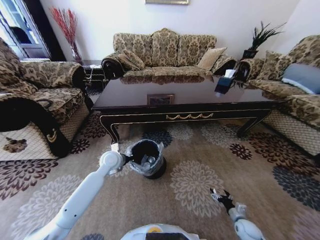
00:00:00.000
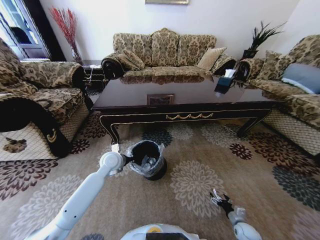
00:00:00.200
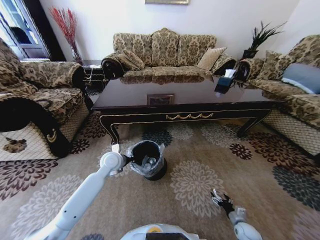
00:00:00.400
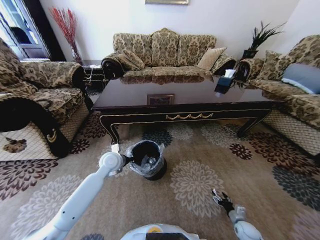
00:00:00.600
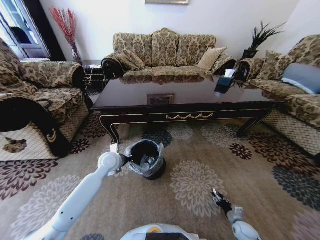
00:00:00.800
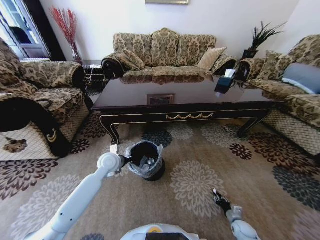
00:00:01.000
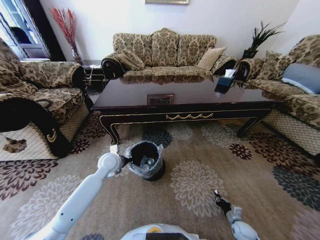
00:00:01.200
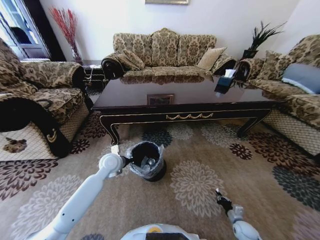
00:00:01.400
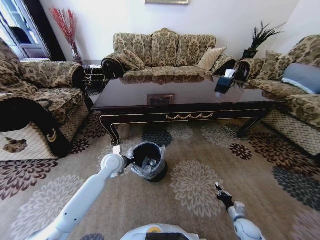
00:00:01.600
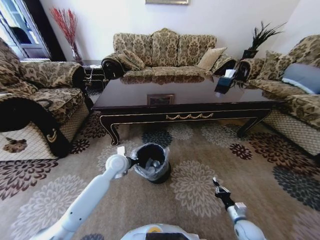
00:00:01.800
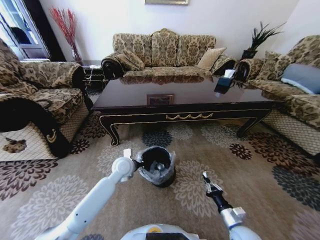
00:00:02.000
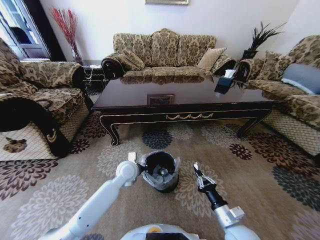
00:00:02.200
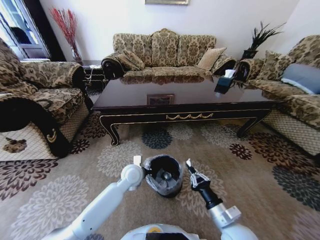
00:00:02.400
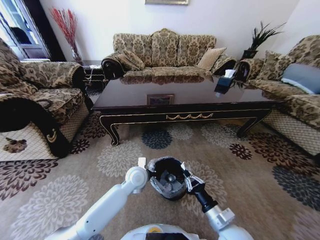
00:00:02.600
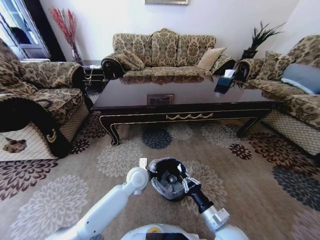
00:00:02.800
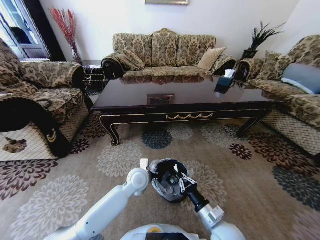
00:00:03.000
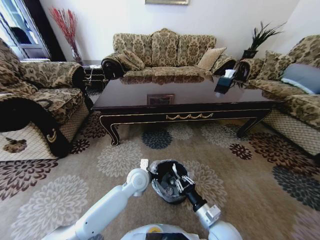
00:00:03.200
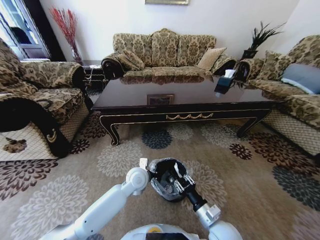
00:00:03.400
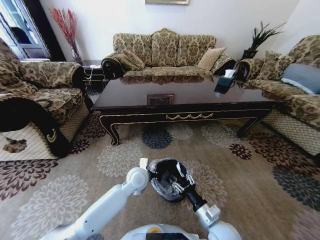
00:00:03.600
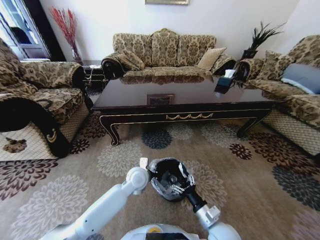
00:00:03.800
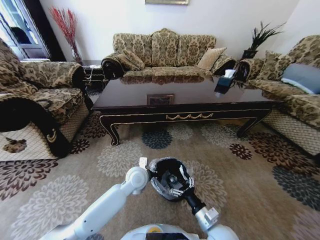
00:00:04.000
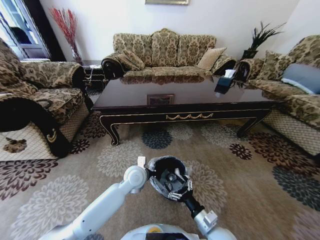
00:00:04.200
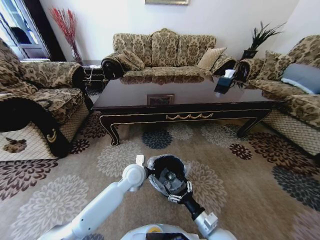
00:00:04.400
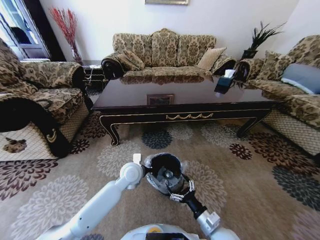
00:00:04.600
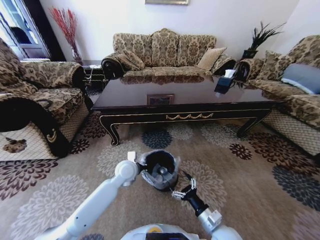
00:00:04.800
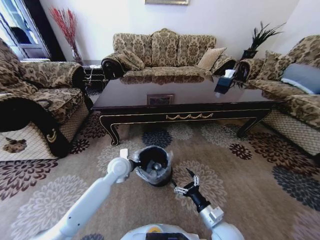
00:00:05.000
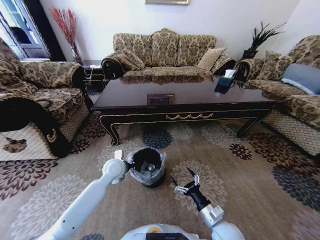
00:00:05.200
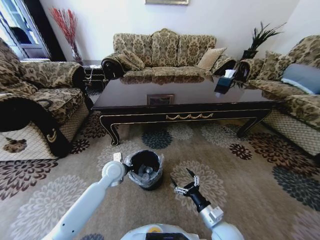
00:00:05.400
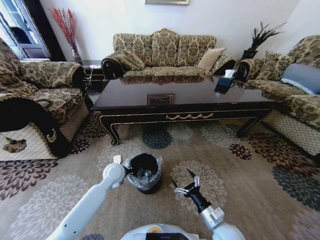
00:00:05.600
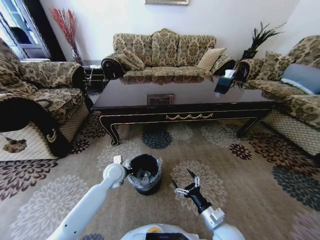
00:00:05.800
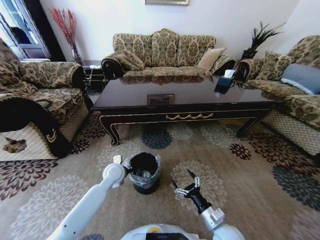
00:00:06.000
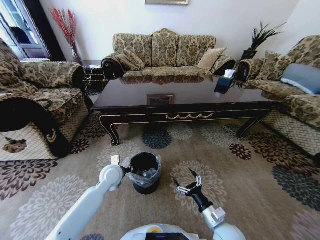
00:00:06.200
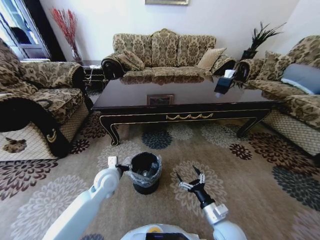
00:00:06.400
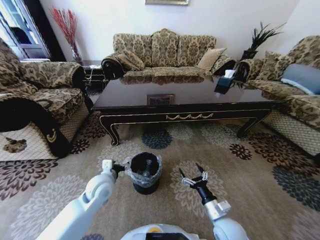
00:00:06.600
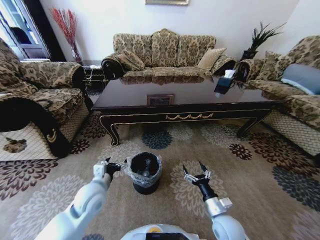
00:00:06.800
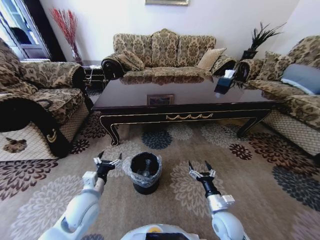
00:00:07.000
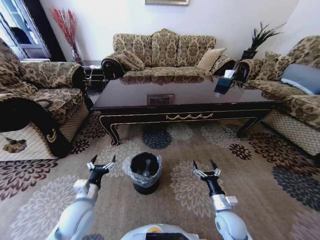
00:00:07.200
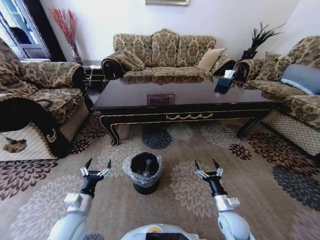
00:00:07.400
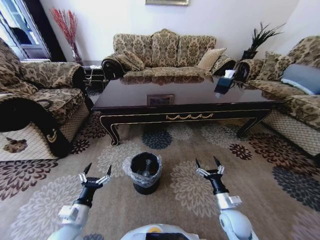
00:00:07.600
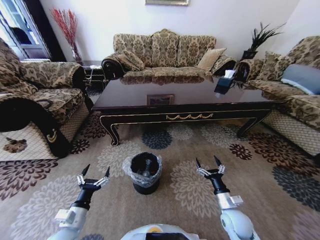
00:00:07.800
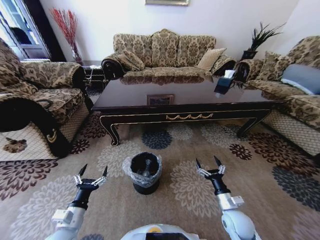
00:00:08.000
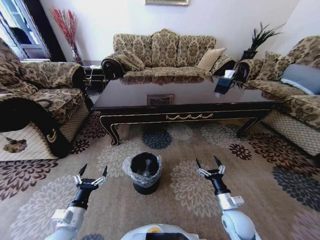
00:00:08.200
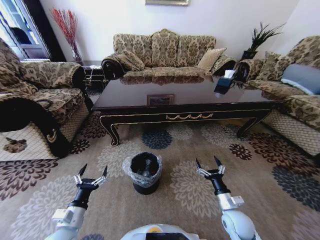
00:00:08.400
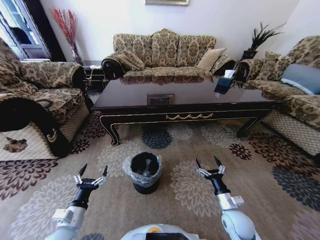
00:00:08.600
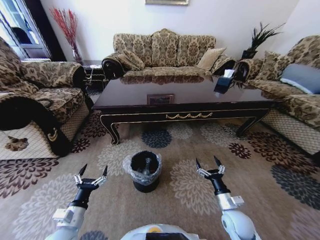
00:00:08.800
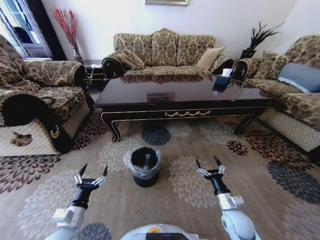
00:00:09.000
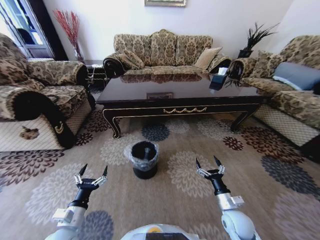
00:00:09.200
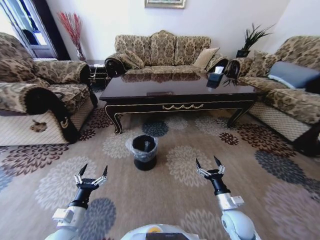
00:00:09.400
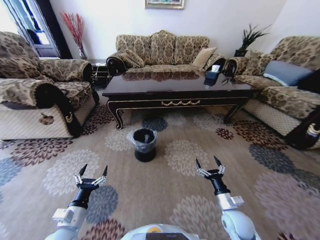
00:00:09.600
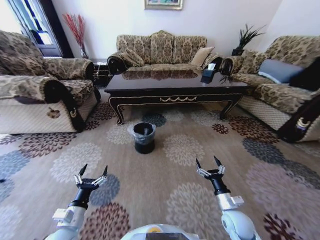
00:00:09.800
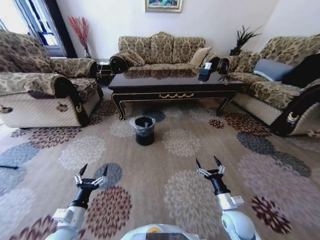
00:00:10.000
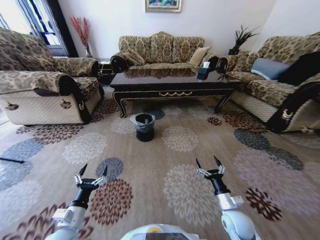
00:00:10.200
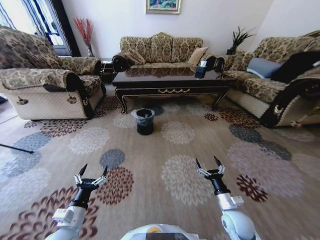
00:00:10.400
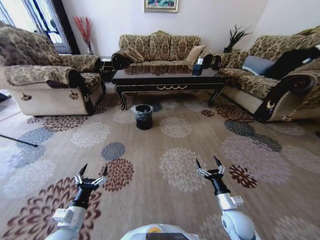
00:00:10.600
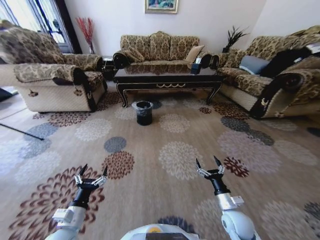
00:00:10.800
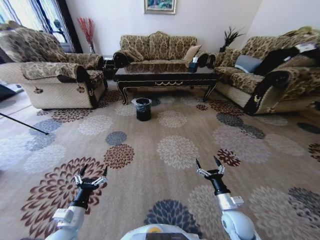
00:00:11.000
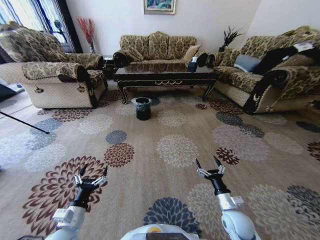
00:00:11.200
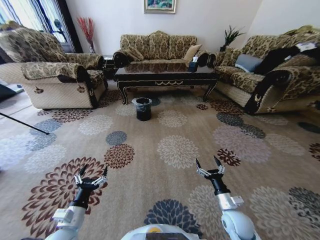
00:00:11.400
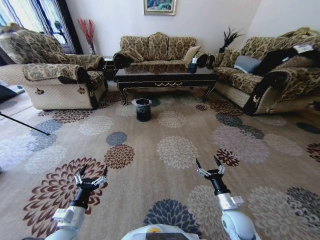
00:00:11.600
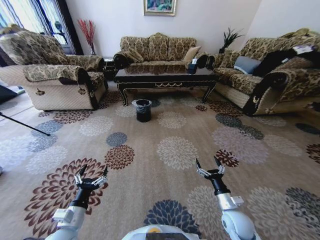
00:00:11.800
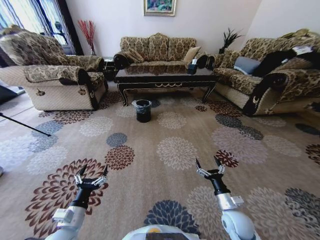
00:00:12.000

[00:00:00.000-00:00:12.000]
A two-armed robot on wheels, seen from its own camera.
Task of the whole recording: Move to the front of the table and pick up the trash from the floor, then place it into the trash bin.
00:00:00.000 to 00:00:01.600: The right gripper closes.
00:00:01.600 to 00:00:03.000: The right gripper is displaced to the left and upward by approximately 30 cm. The left gripper goes some 15 cm to the right and backward.
00:00:03.000 to 00:00:04.400: The right gripper opens.
00:00:04.400 to 00:00:06.000: The left gripper heads to the left, covering about 10 cm.
00:00:06.000 to 00:00:07.600: The left gripper goes approximately 25 cm backward and to the left, and opens. The right gripper travels to the right and forward by about 10 cm.

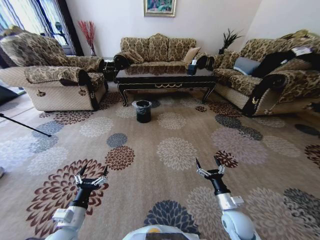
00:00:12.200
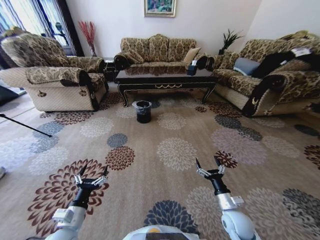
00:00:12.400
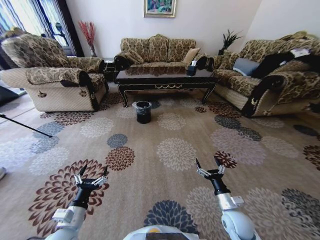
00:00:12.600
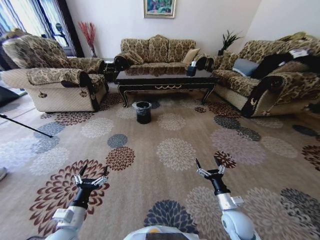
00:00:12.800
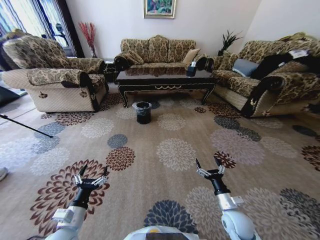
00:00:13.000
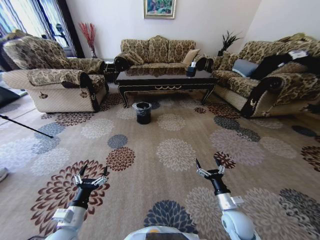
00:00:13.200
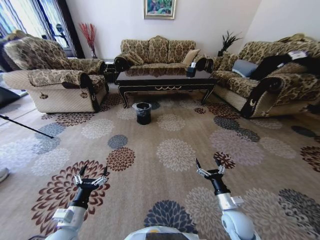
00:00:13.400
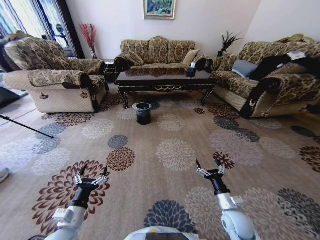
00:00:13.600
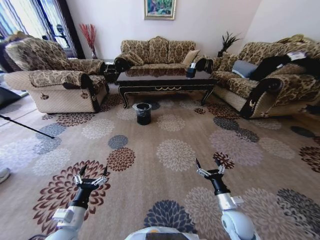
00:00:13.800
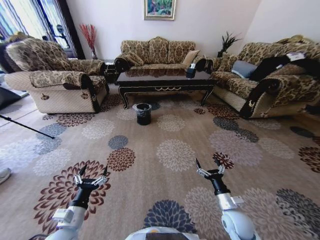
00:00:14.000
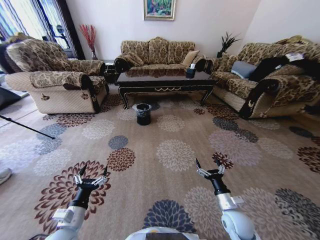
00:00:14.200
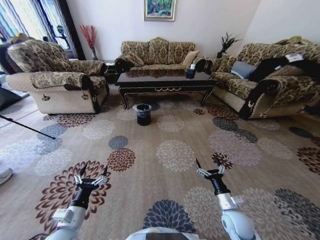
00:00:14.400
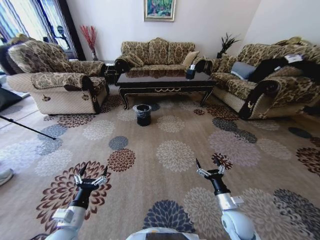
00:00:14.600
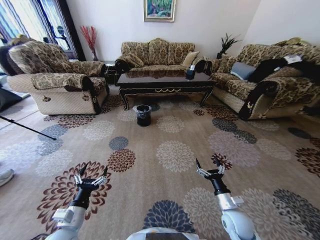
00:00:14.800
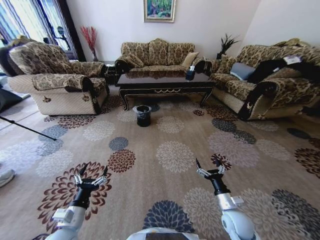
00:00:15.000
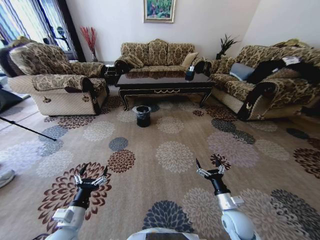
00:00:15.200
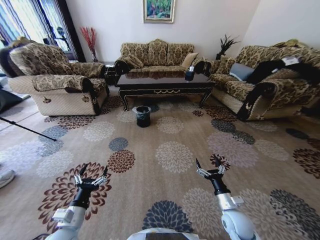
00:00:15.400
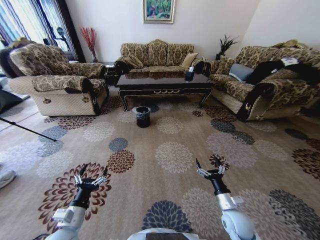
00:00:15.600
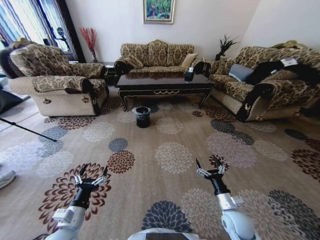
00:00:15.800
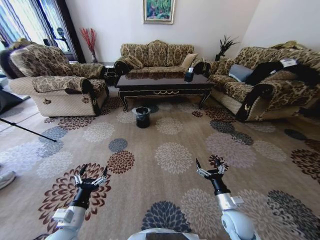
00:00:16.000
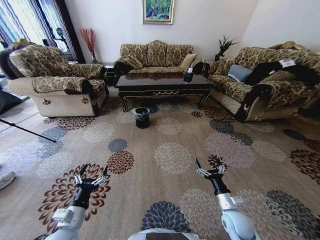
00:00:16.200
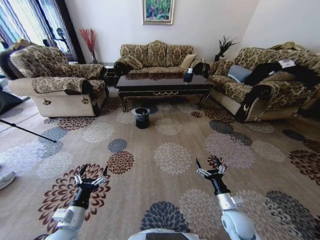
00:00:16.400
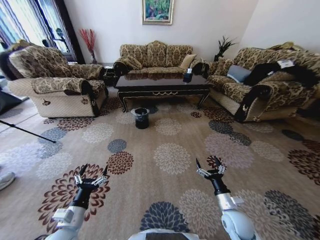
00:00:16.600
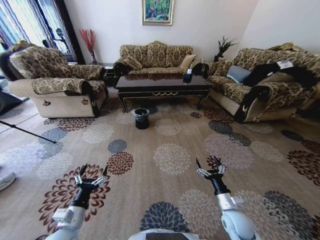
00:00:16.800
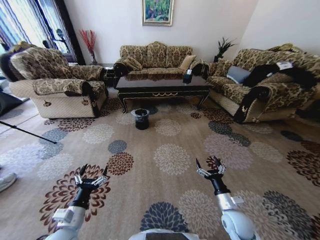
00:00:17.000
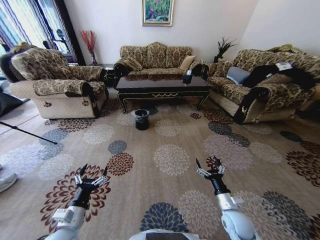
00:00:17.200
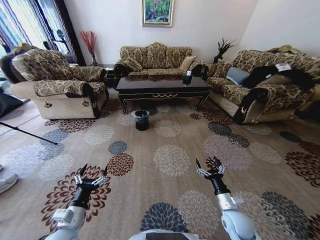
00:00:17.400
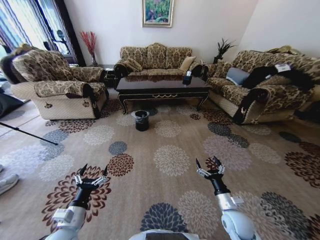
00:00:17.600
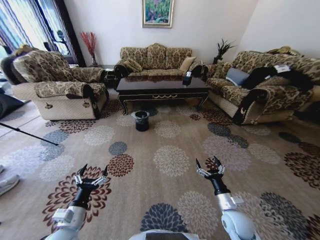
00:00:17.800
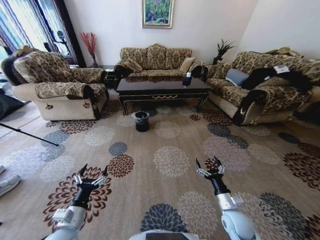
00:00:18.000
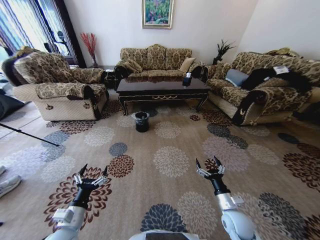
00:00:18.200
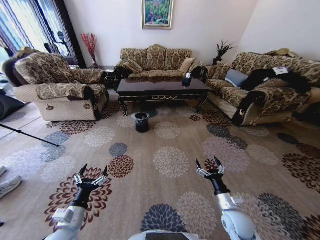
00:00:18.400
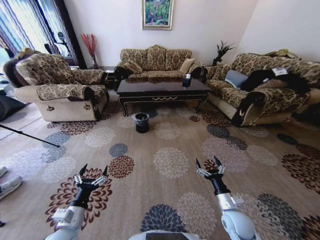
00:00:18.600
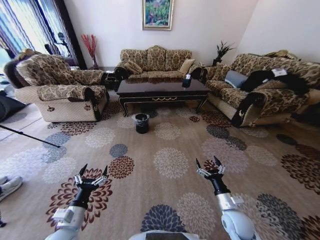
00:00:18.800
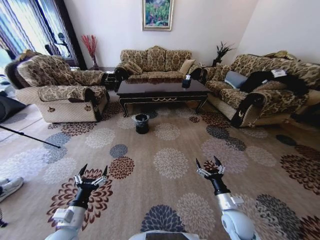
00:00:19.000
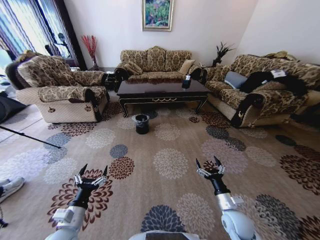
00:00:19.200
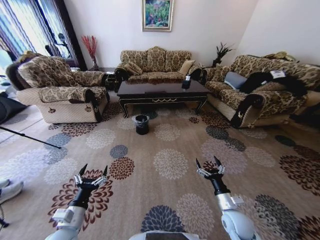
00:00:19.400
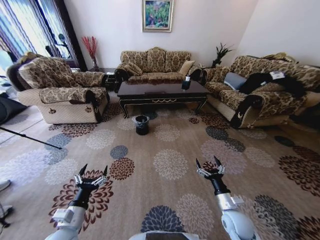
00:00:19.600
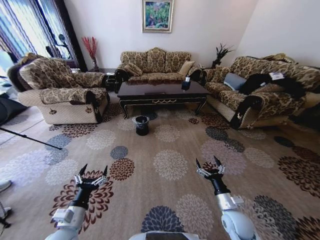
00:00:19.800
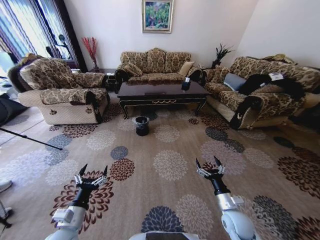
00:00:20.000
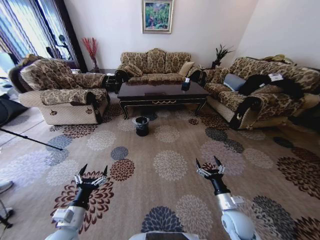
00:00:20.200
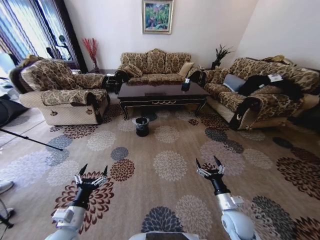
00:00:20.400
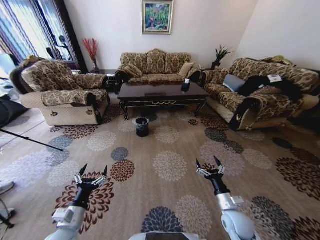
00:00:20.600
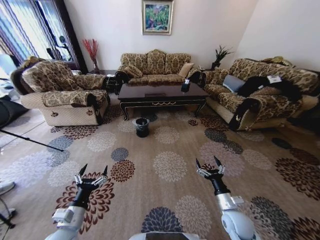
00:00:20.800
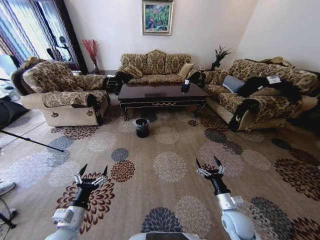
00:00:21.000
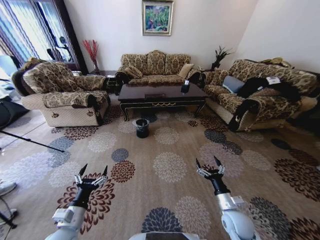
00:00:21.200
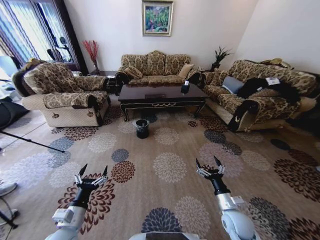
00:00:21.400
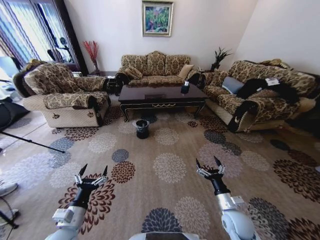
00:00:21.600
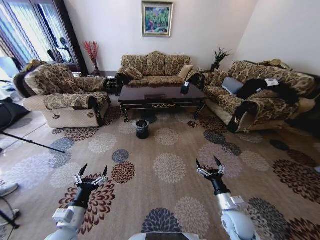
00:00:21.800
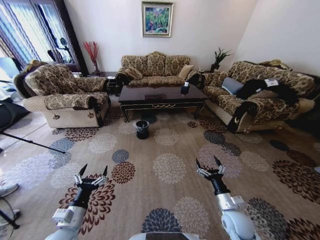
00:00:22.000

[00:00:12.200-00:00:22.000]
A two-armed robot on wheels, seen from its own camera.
Task of the whole recording: Move to the front of the table and pick up the trash from the floor, then place it into the trash bin.
00:00:12.200 to 00:00:16.400: Neither gripper changes place.
00:00:20.600 to 00:00:22.000: The two grippers keep their place.
